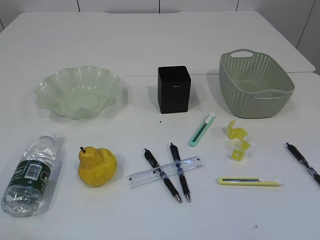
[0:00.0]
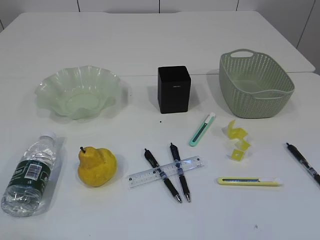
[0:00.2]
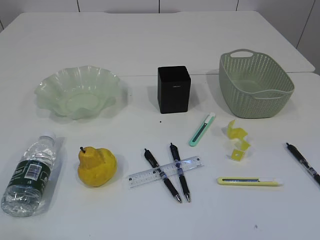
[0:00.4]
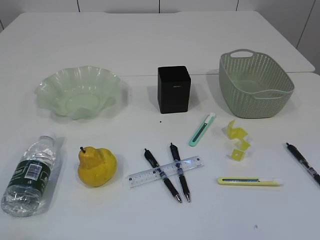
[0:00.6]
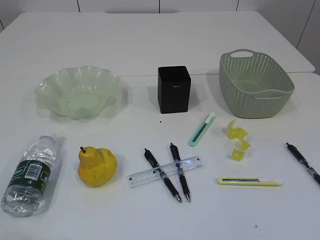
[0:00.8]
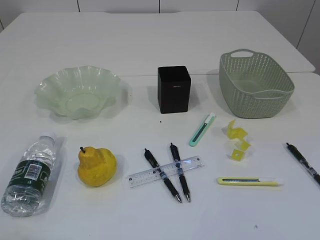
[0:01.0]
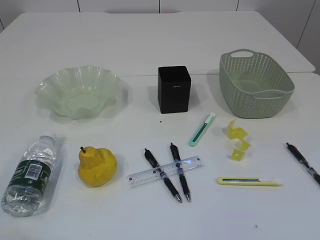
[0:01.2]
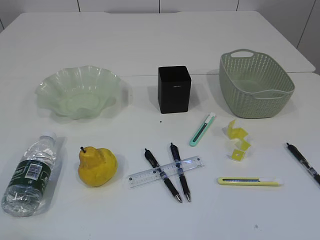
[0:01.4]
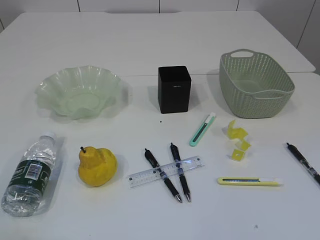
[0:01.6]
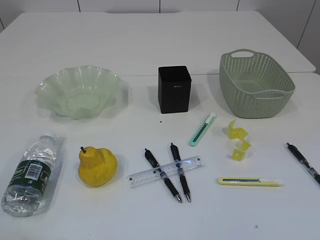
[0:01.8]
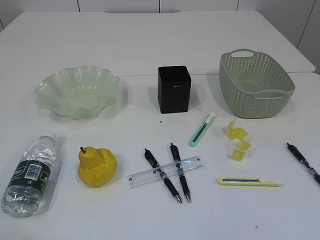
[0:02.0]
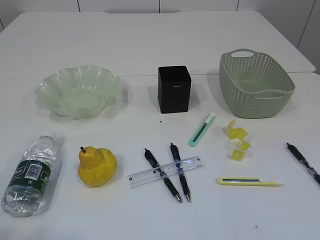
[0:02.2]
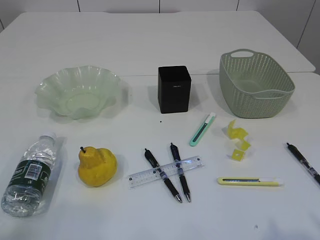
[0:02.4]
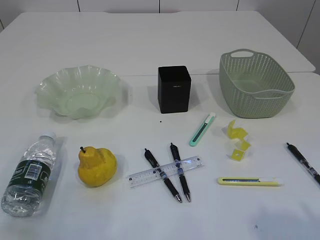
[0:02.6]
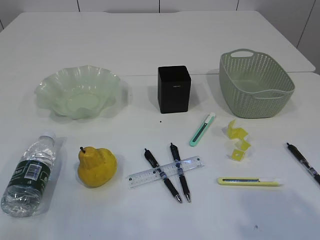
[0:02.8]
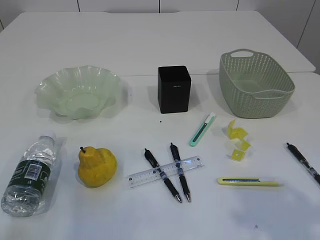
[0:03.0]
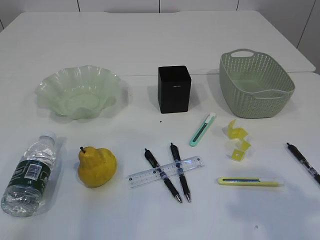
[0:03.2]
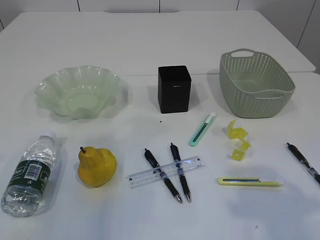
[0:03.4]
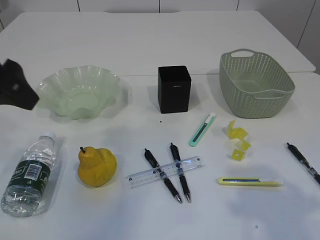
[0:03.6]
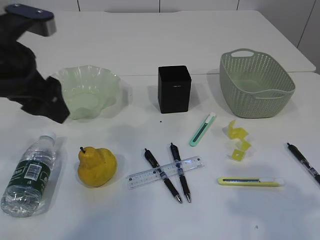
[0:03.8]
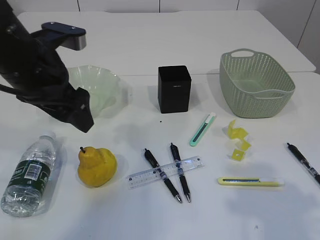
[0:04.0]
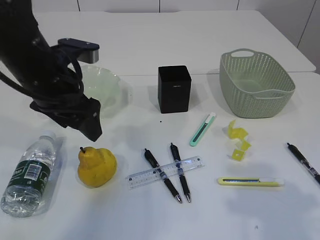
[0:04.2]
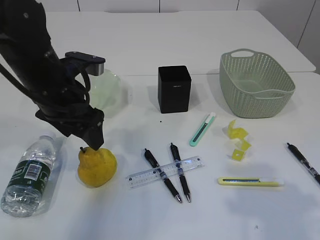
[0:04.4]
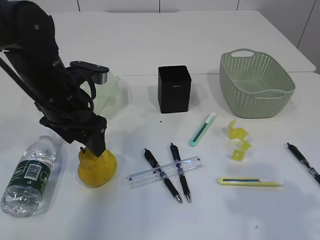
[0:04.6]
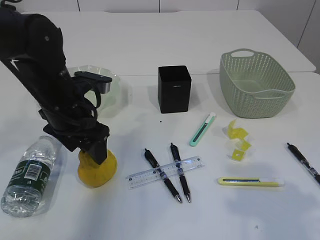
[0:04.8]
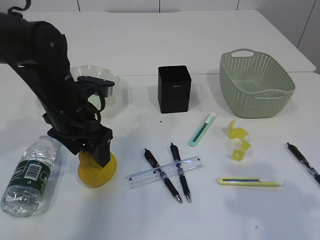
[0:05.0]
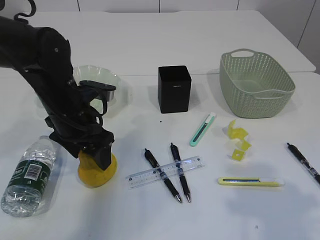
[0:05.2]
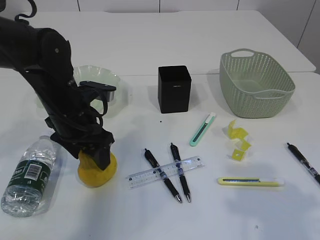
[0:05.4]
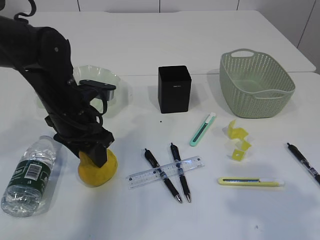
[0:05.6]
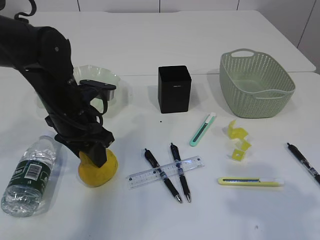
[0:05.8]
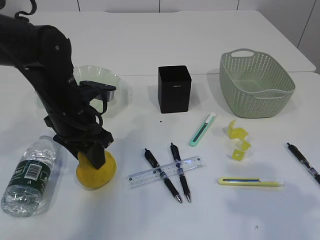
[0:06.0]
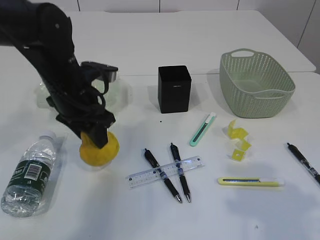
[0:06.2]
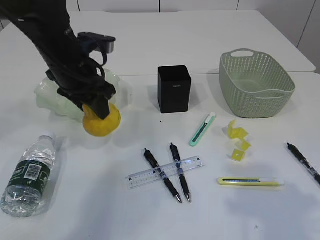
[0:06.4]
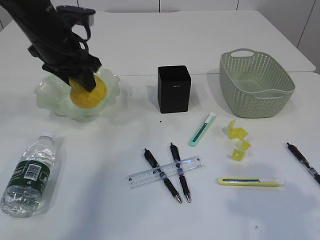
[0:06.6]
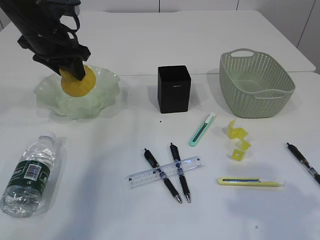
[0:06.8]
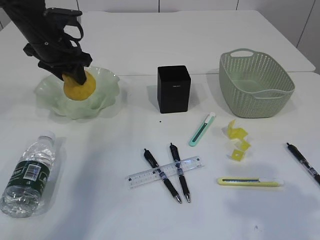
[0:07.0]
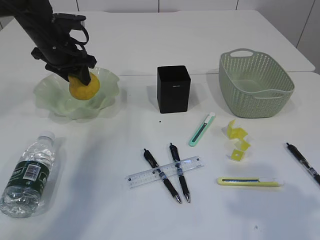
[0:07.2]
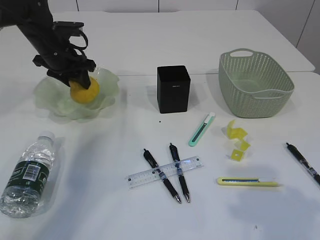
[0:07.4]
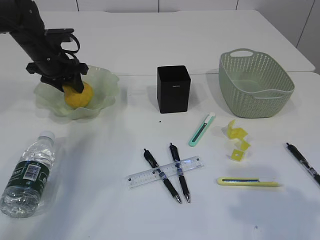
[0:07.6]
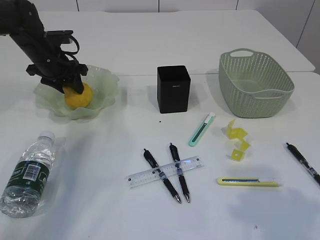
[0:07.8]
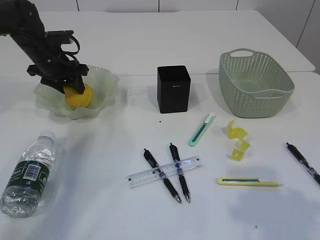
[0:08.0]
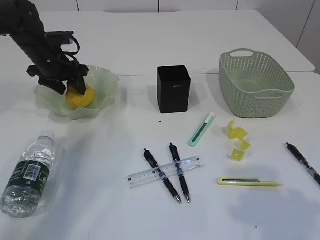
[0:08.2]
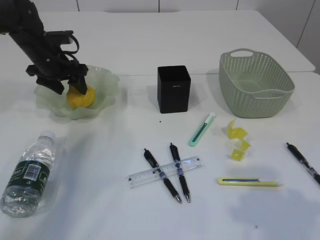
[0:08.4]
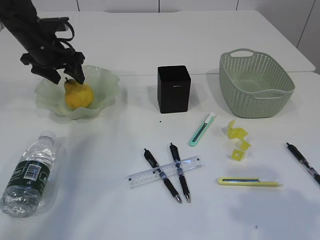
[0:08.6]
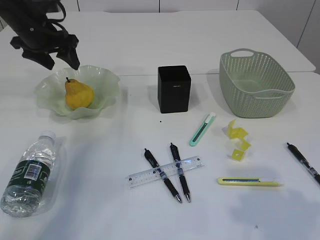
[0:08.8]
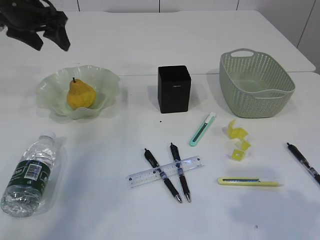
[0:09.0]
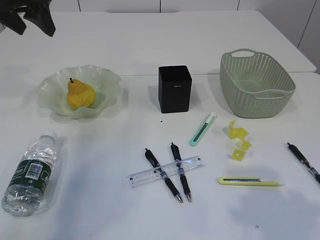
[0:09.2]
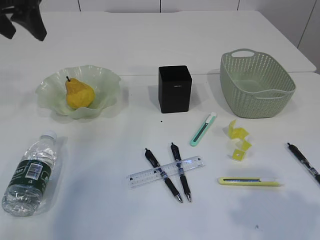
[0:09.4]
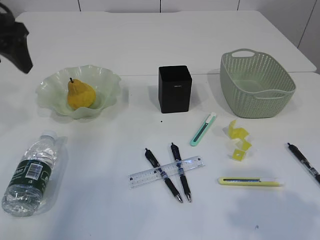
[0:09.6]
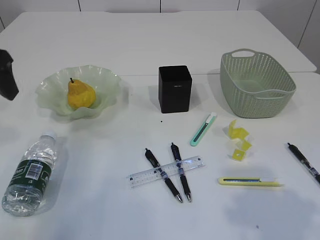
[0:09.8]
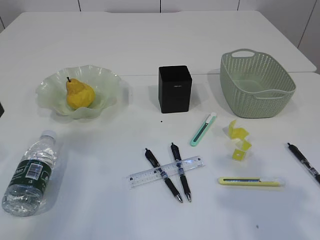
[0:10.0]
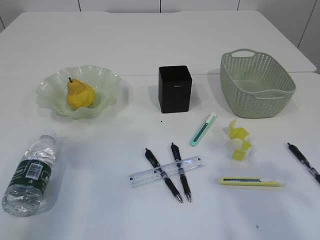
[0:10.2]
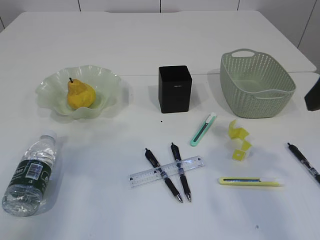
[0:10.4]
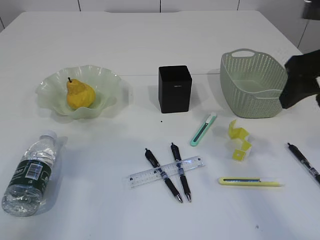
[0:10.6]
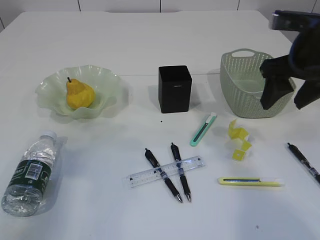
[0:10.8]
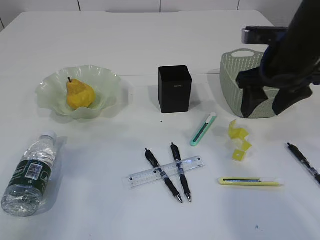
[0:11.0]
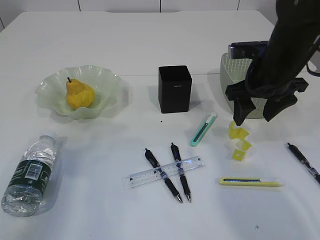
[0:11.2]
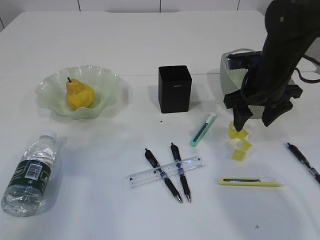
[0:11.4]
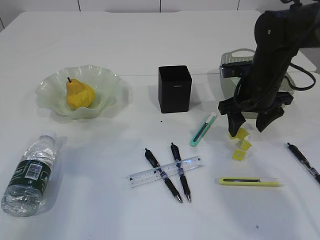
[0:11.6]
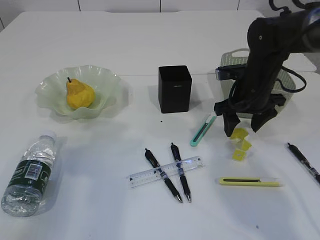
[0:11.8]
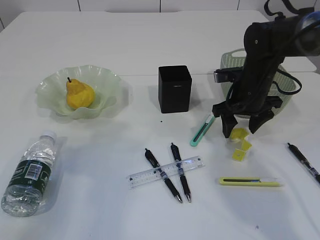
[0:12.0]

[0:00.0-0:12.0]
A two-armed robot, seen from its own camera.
Step, 0:06.4 to 0:08.6: Place the pear in the plate.
0:01.6 to 0:03.0: The right gripper travels forward by roughly 10 cm. The left gripper shifts some 15 cm forward and upward.
0:03.0 to 0:04.4: The left gripper is displaced forward, to the right and downward by about 30 cm, and opens.
0:04.4 to 0:06.0: The left gripper goes roughly 5 cm downward, and closes.
0:06.0 to 0:07.6: The left gripper shifts approximately 20 cm forward and to the left.
0:07.6 to 0:09.0: The left gripper goes roughly 10 cm upward, and opens.
0:09.0 to 0:10.4: The right gripper heads forward, covering about 10 cm. Meanwhile the left gripper heads backward, covering roughly 25 cm.
0:10.4 to 0:12.0: The right gripper is displaced forward and downward by about 30 cm.

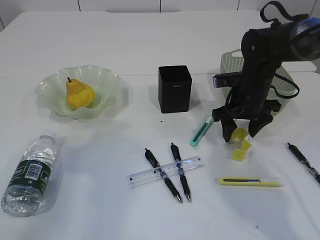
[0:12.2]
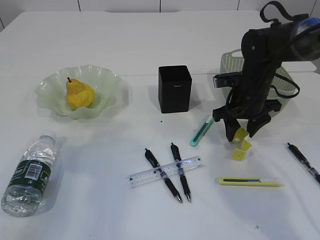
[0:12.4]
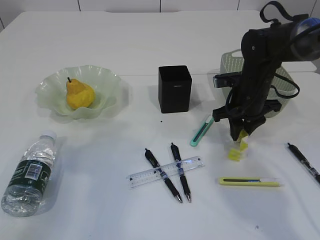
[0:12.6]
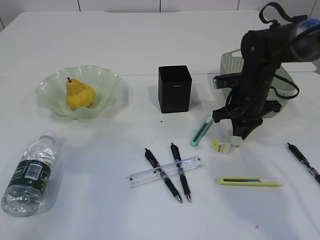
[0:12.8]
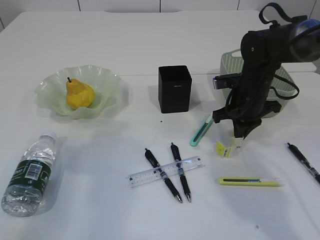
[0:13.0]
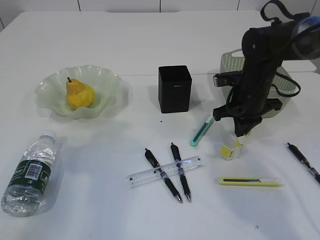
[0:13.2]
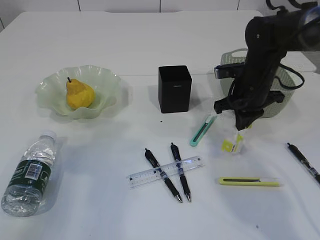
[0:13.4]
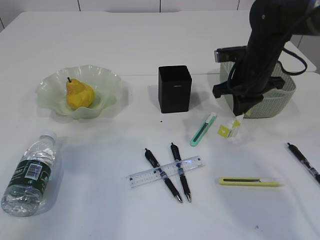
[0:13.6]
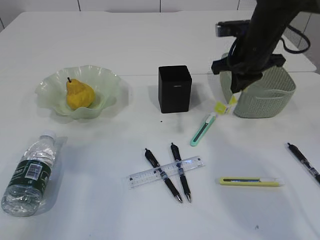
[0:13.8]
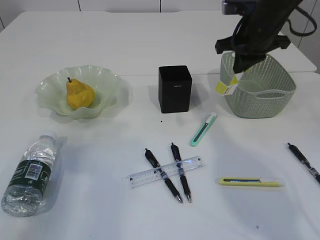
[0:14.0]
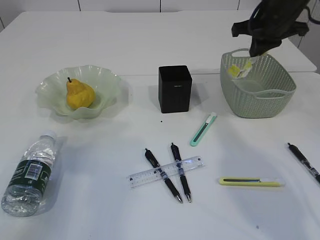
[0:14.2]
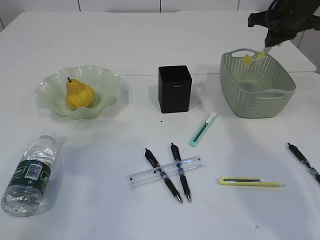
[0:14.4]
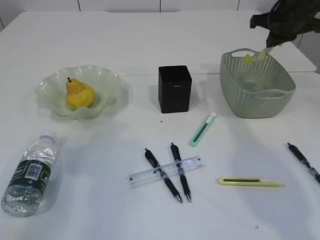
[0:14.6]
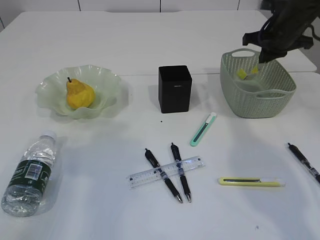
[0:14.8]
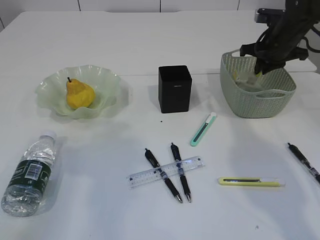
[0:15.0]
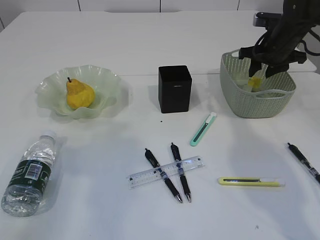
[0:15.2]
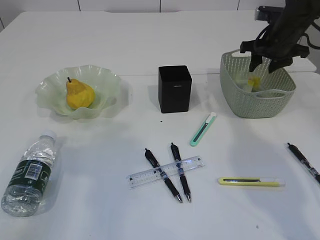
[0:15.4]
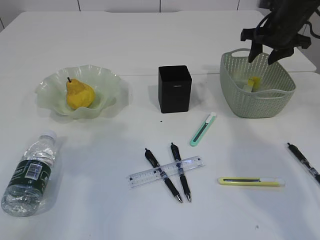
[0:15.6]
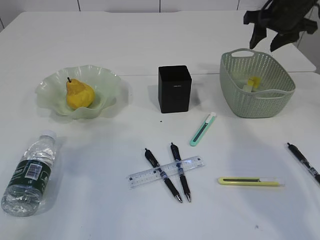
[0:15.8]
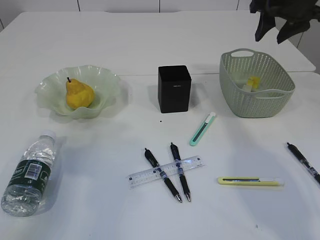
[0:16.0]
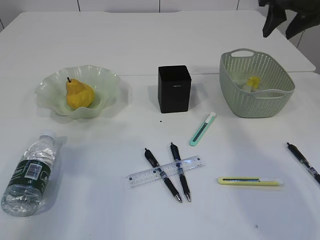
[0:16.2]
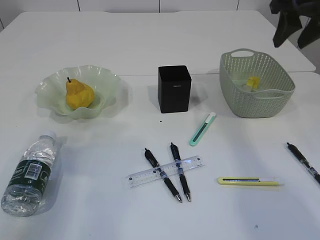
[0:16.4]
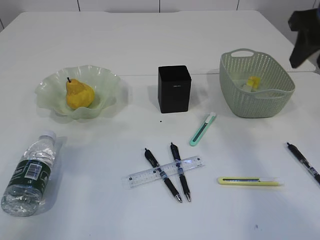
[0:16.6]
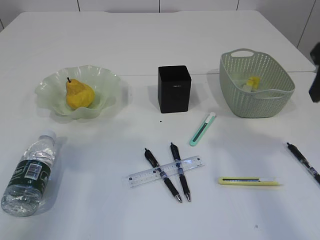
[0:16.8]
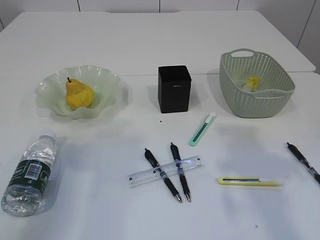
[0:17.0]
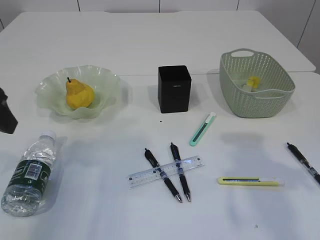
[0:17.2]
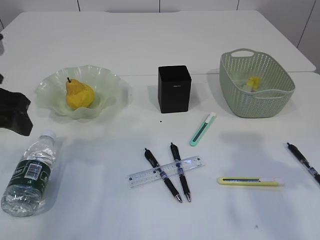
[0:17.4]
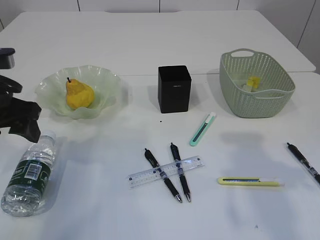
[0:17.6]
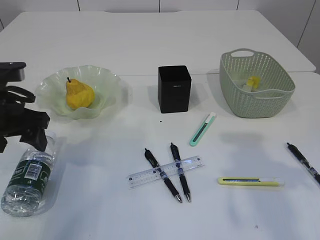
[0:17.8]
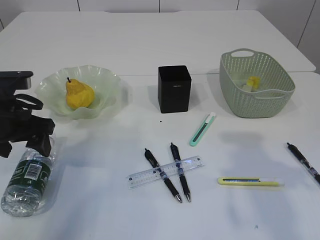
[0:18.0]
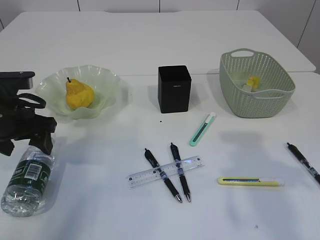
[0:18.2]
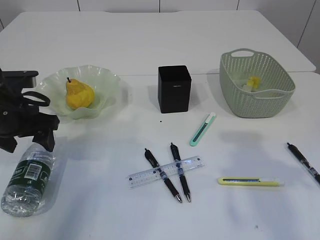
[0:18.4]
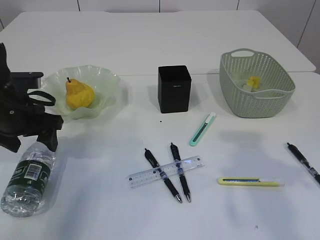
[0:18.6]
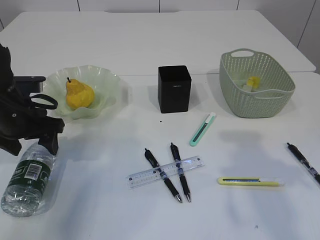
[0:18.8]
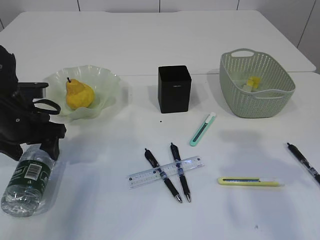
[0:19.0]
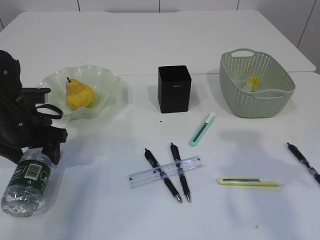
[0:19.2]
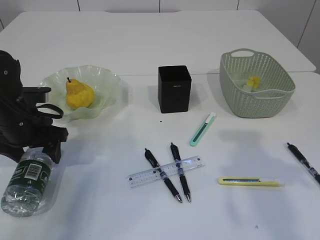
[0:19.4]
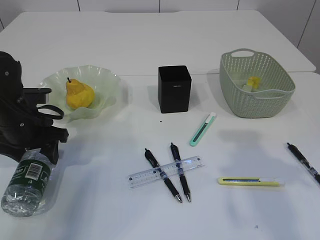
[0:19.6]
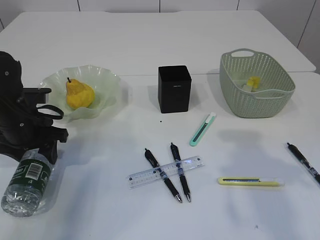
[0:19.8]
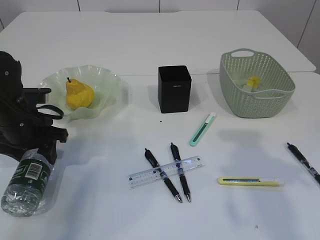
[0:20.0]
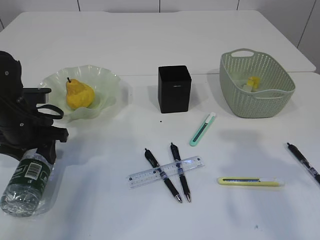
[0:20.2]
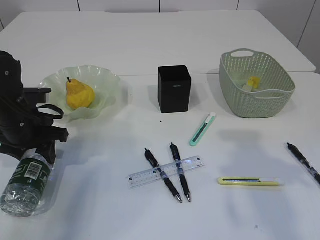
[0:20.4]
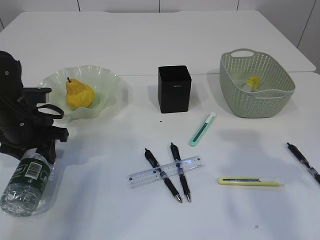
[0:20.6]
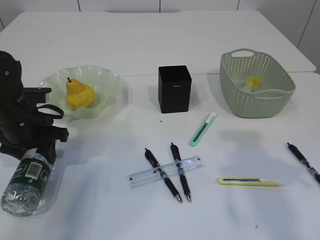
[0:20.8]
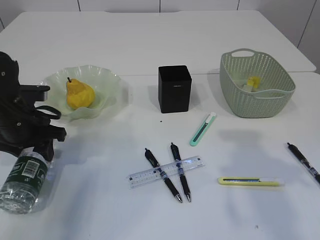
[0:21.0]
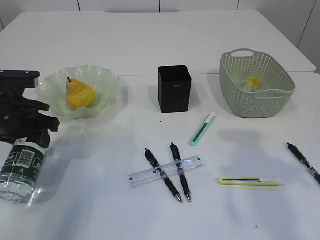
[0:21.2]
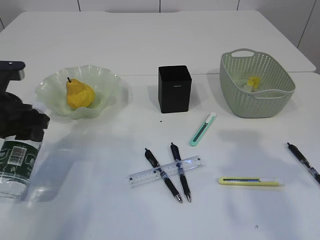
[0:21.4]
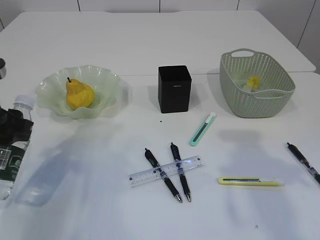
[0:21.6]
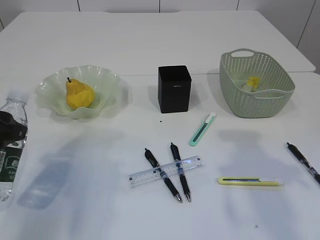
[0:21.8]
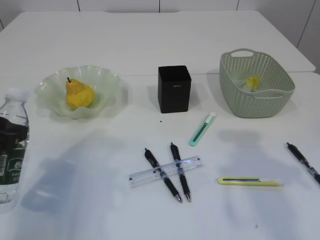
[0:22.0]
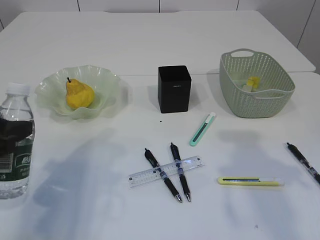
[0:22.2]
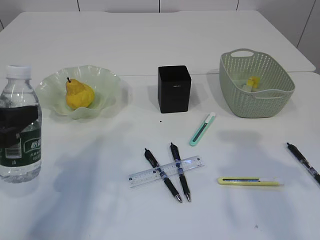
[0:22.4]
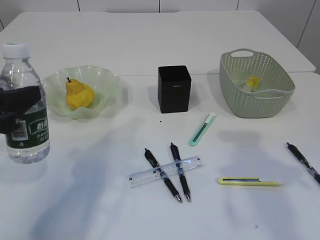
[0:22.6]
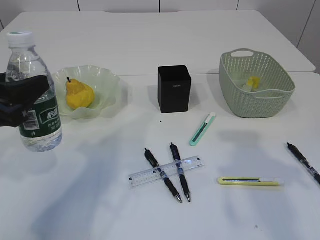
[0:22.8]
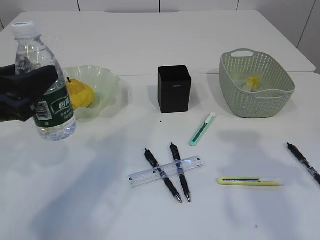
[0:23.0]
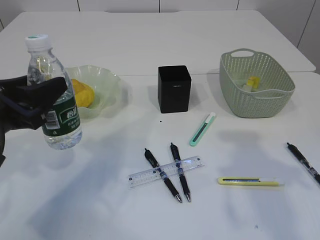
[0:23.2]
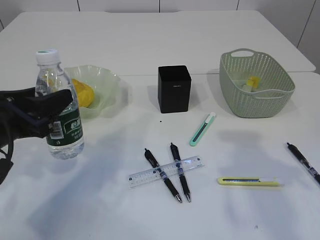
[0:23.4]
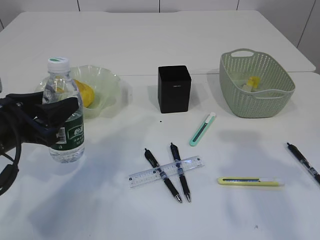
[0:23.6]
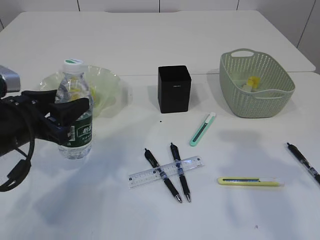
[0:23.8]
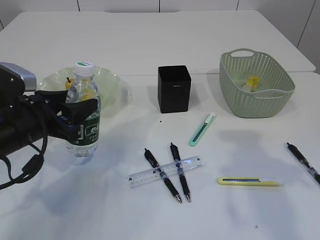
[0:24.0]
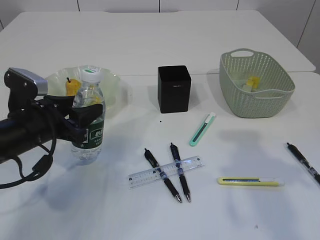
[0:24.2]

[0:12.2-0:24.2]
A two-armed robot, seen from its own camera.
Step, 0:13.8 to 0:15.6: Place the waste paper in the basket.
Step, 0:15.8 to 0:21.4: Pick up the bottle with the left arm.
0:12.2 to 0:13.8: The right gripper shifts some 10 cm upward, and closes its fingers.
0:13.8 to 0:15.2: The right gripper travels to the right and forward by approximately 10 cm, and opens its fingers.
0:15.2 to 0:16.6: The right gripper travels backward and upward by roughly 20 cm.
0:16.6 to 0:18.2: The right gripper travels backward by about 10 cm. Meanwhile the left gripper is displaced downward and forward by approximately 15 cm.
0:18.2 to 0:19.8: The left gripper moves some 5 cm, and closes up.
0:19.8 to 0:21.2: There are only small adjustments of the grippers.
0:21.2 to 0:22.6: The left gripper travels backward and upward by some 15 cm.
0:22.6 to 0:24.2: The left gripper goes roughly 10 cm downward and forward.
